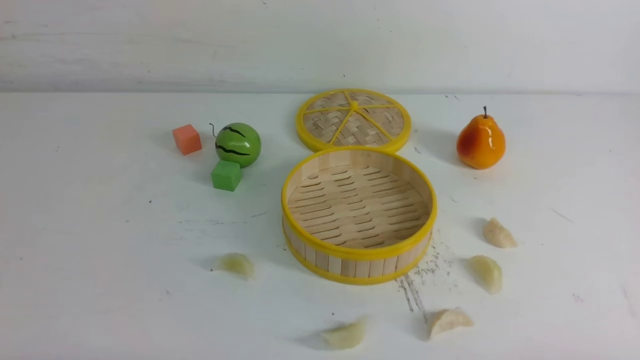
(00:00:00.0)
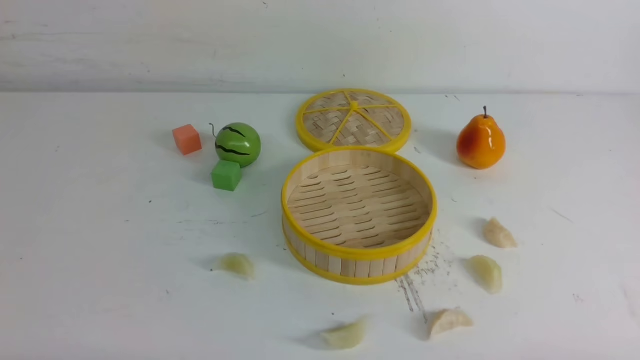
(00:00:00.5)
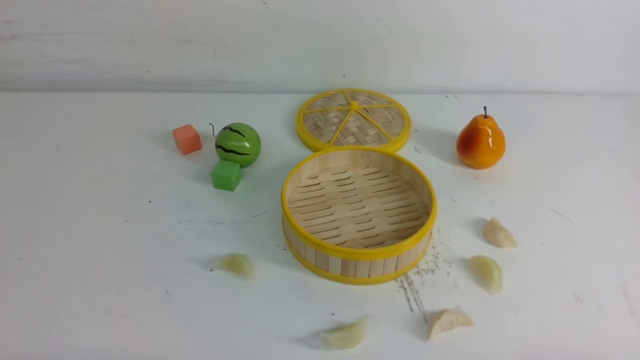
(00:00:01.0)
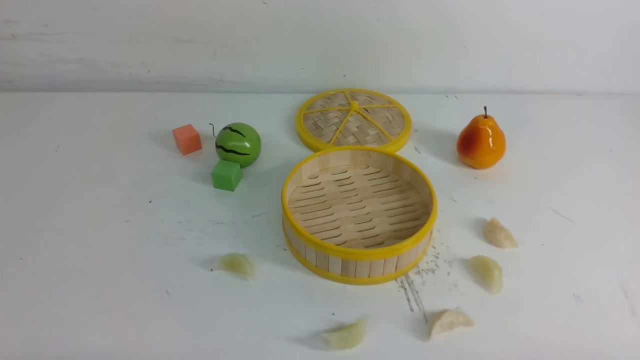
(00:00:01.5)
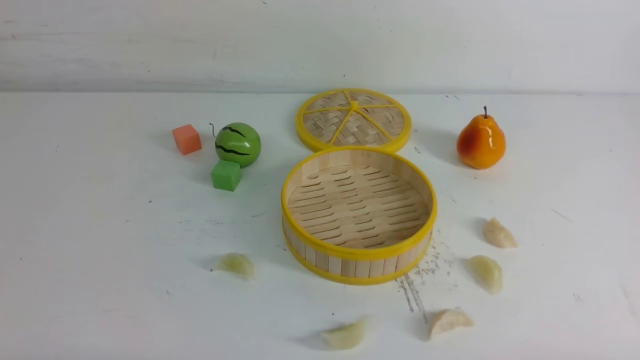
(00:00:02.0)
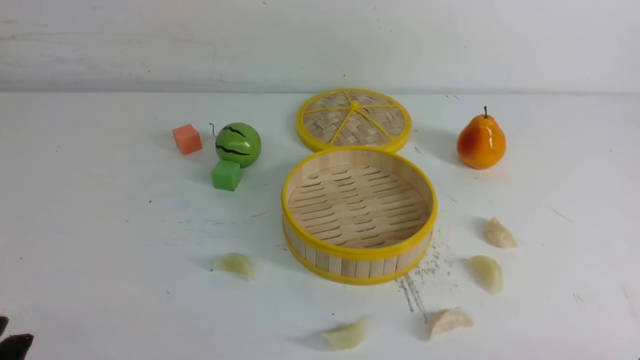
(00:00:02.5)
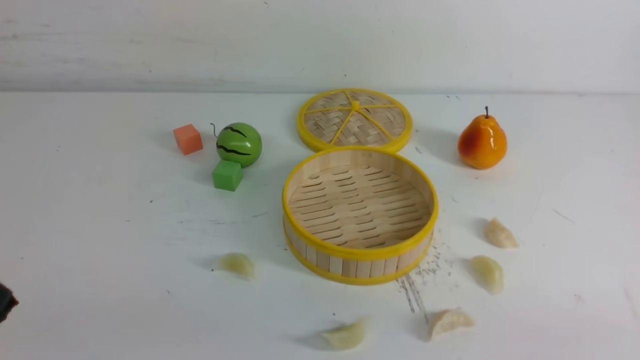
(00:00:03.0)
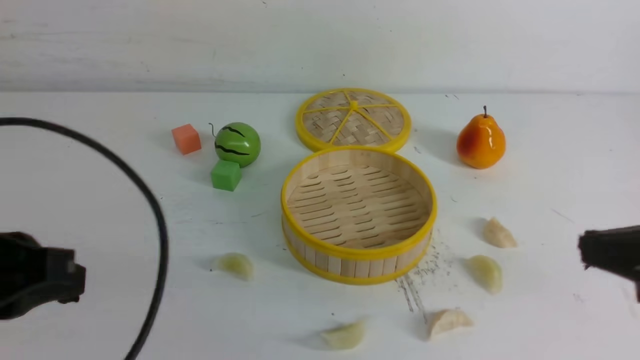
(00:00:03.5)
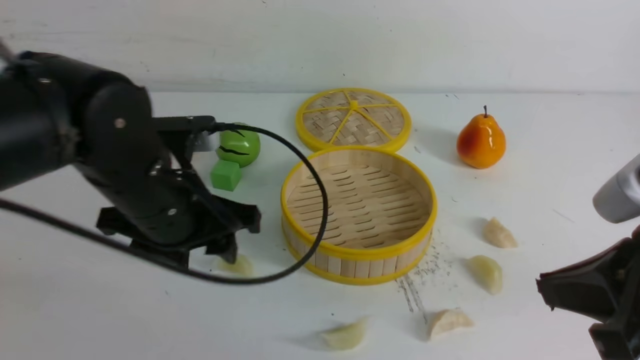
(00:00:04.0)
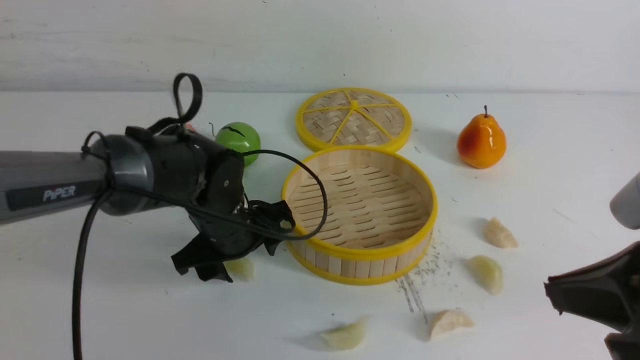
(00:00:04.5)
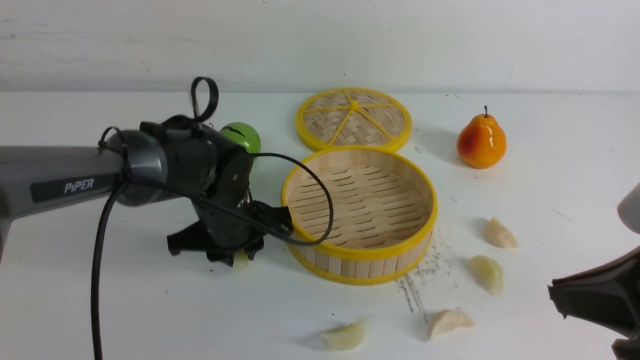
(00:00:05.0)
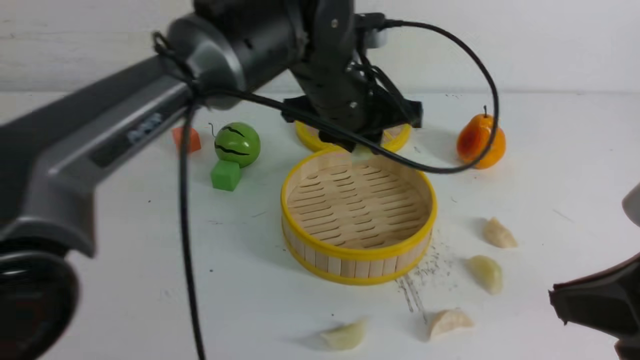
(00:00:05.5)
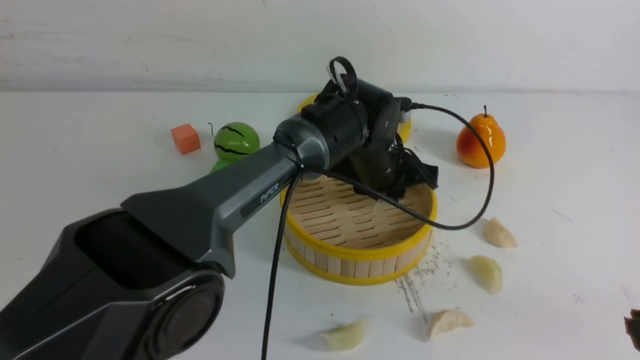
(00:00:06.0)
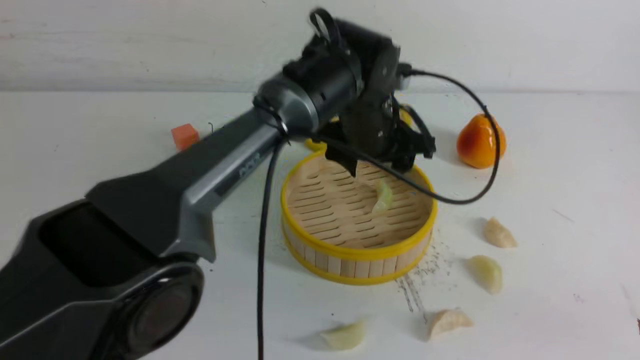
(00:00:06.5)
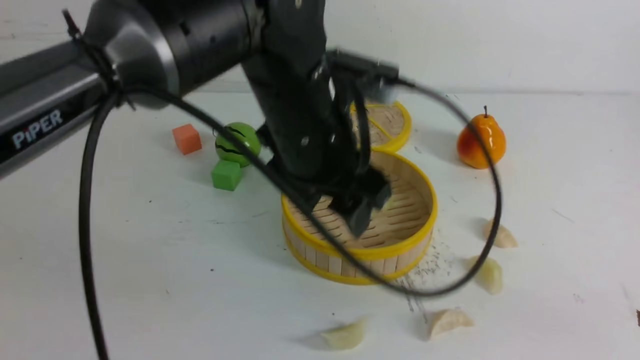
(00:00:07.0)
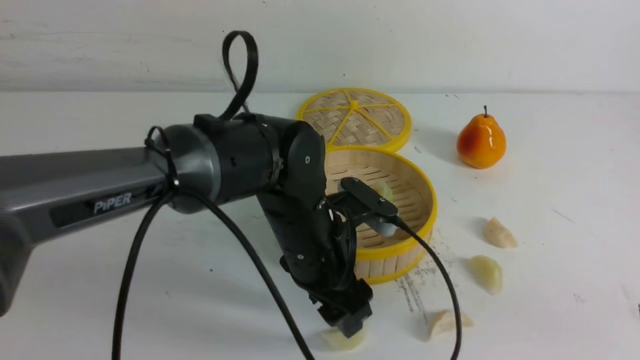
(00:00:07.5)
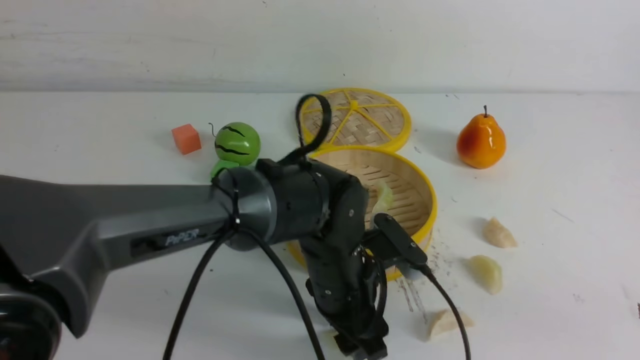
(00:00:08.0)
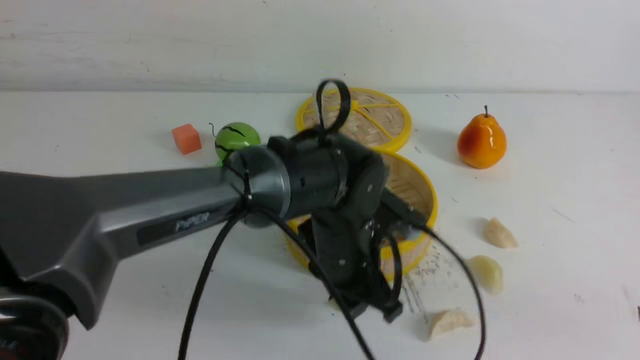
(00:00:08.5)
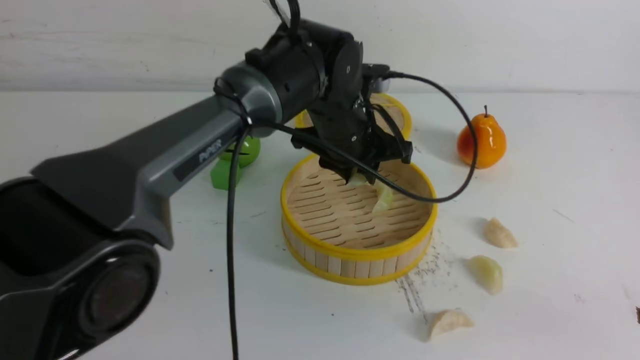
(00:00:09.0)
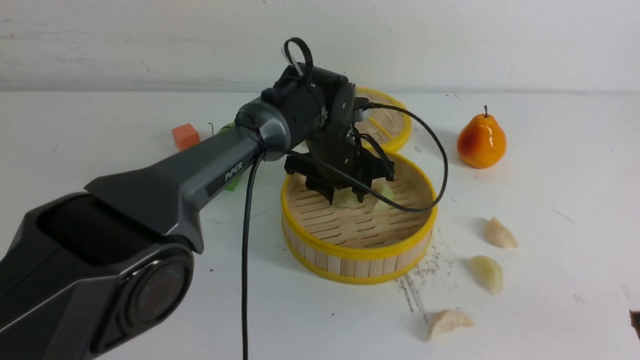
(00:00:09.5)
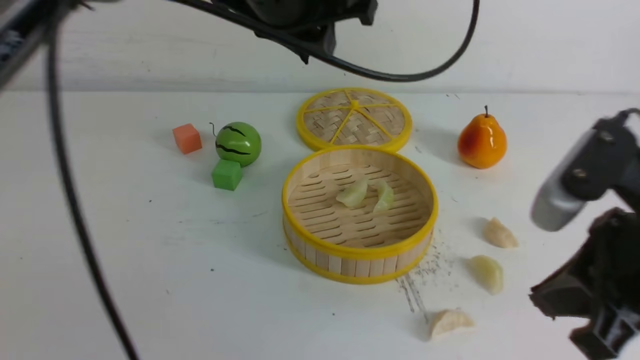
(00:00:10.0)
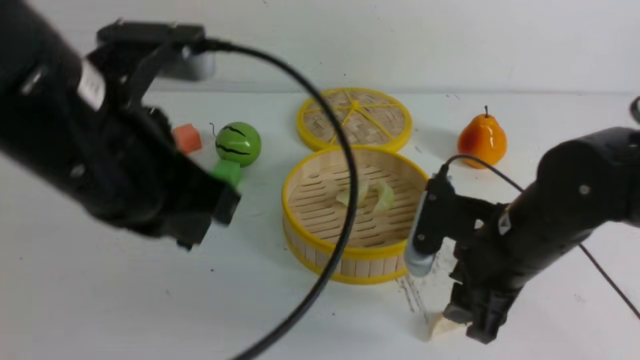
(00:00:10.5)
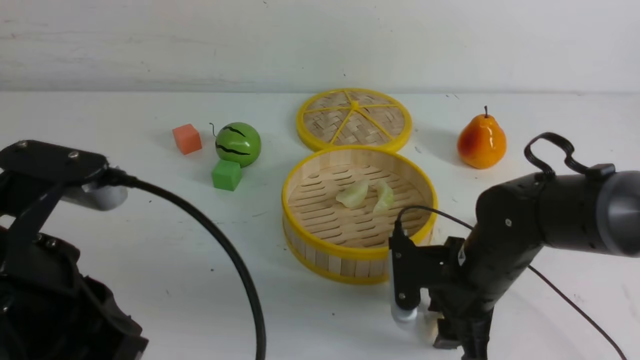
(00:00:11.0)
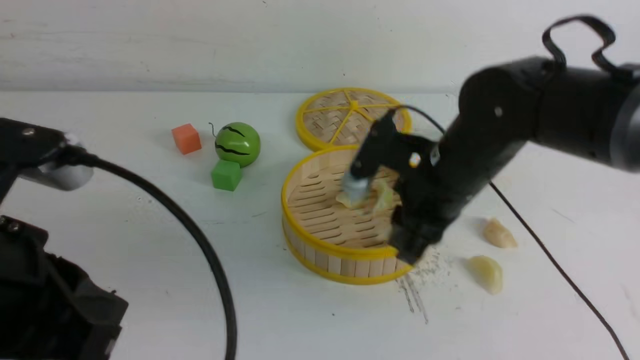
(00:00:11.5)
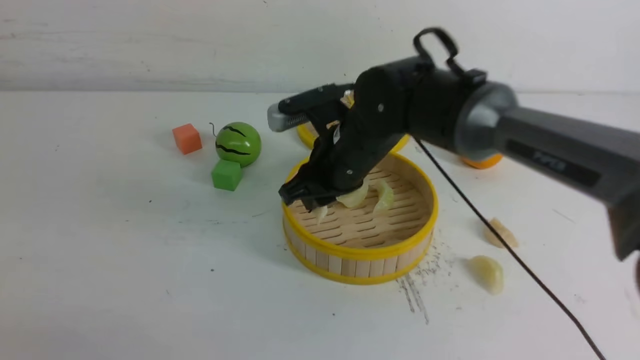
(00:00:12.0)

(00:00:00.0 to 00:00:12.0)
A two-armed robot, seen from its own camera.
Task of the whole recording: put the dumplings into the steamer on the white table.
Step, 00:00:00.0 - 00:00:05.0: use the left arm to grab a dumpling.
Step, 00:00:05.5 - 00:00:06.5: use the left arm to put the dumpling into the steamer.
Step, 00:00:07.0 - 00:00:08.0: use the left arm to grab a dumpling.
Step, 00:00:09.0 - 00:00:09.5: use the left arm to put the dumpling into the steamer.
Step, 00:00:10.0 - 00:00:11.0: use the right arm to grab a dumpling.
00:00:02.0 - 00:00:04.0: The right gripper heads upward, forward and to the left, covering about 20 cm, and closes. Meanwhile the left gripper goes about 30 cm forward, to the right and upward, and closes and opens again.
00:00:04.0 - 00:00:06.0: The right gripper travels backward by approximately 5 cm; the left gripper travels to the right and forward by roughly 25 cm.
00:00:06.0 - 00:00:08.0: The left gripper shifts approximately 15 cm backward, goes upward and returns, roughly 10 cm each way, and opens its fingers.
00:00:08.0 - 00:00:10.0: The left gripper moves upward, some 25 cm, and closes. The right gripper is displaced forward and to the left by roughly 10 cm.
00:00:10.0 - 00:00:12.0: The left gripper heads backward and to the left, covering some 35 cm, while the right gripper shifts some 30 cm forward and to the left, and opens, then closes again.

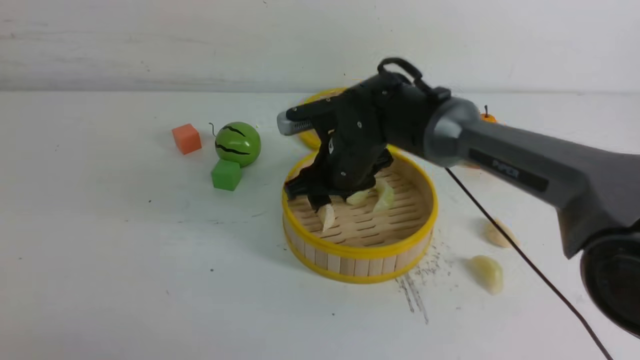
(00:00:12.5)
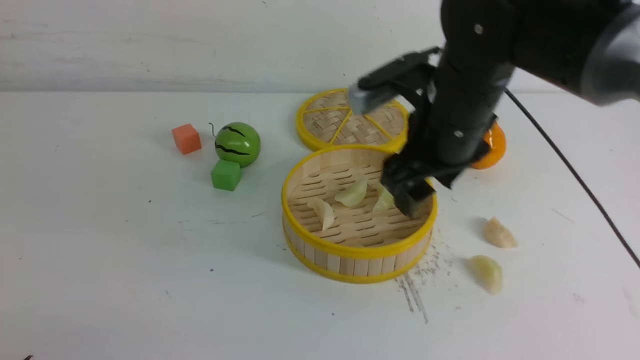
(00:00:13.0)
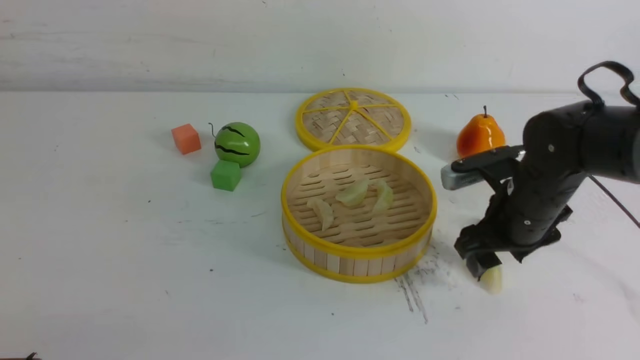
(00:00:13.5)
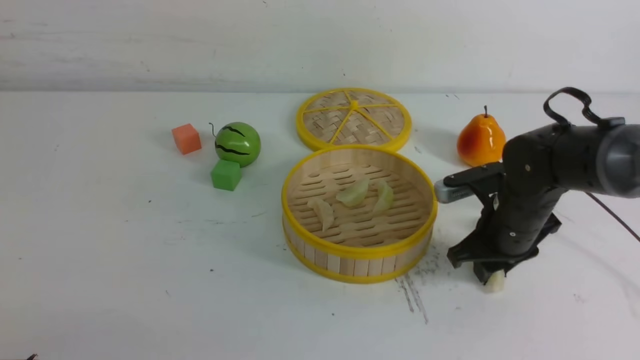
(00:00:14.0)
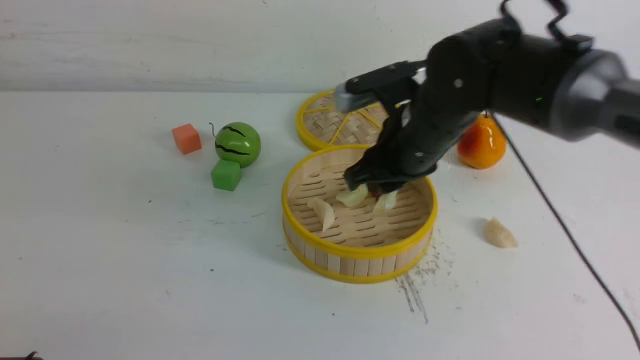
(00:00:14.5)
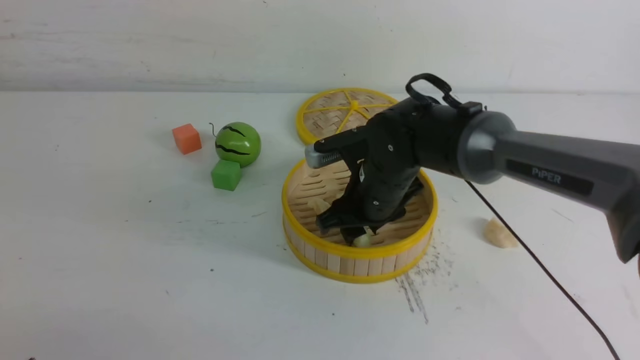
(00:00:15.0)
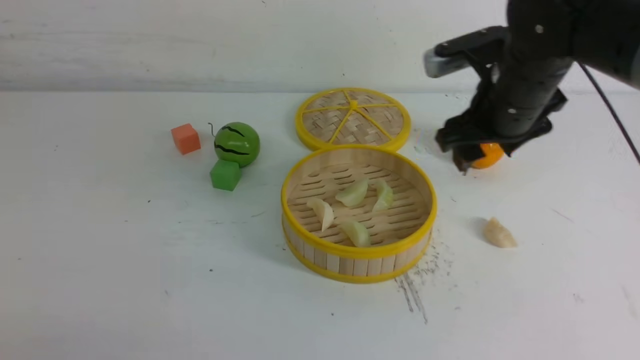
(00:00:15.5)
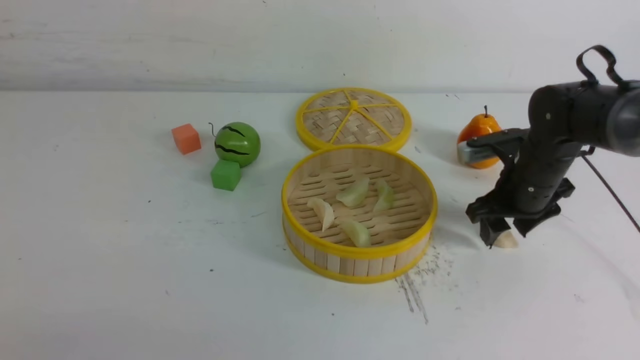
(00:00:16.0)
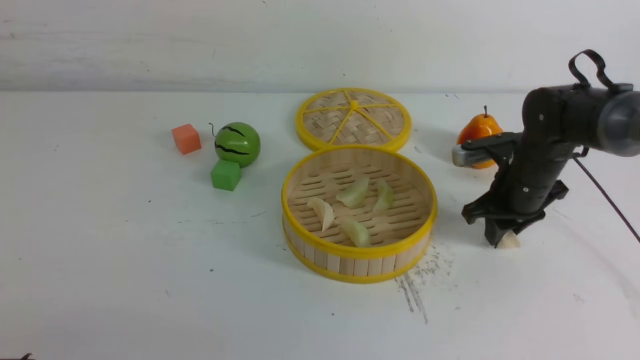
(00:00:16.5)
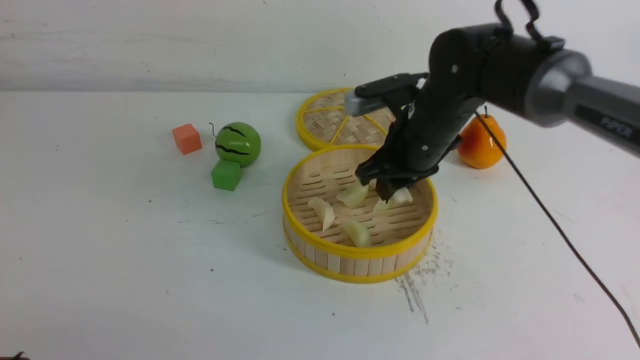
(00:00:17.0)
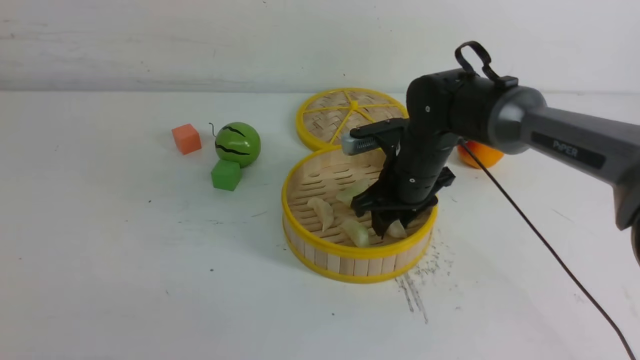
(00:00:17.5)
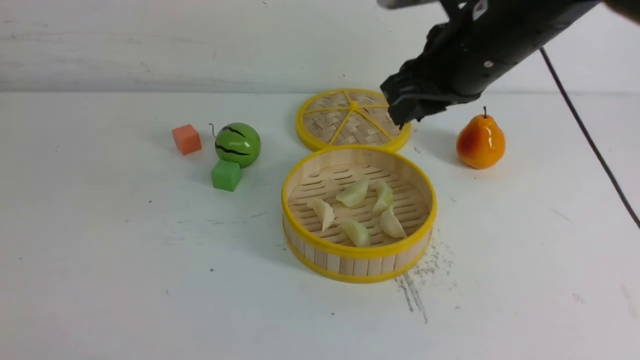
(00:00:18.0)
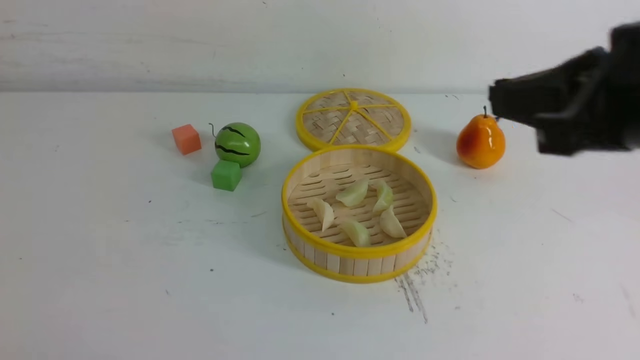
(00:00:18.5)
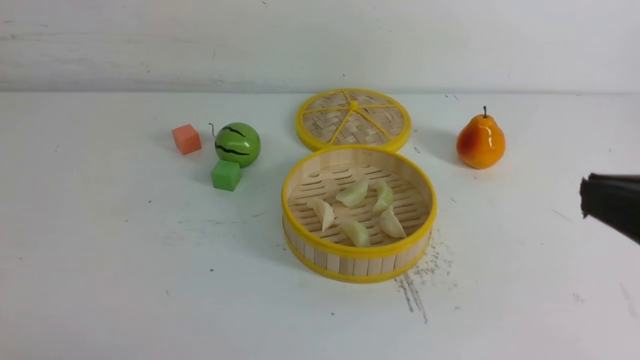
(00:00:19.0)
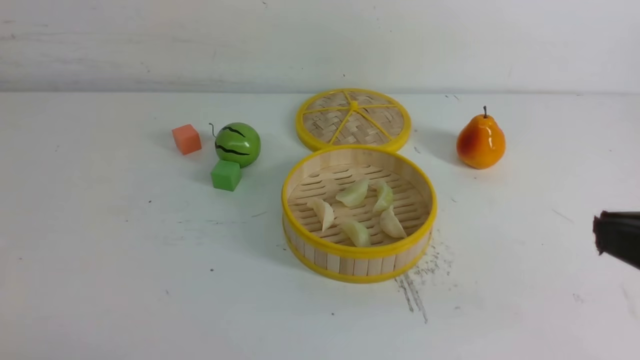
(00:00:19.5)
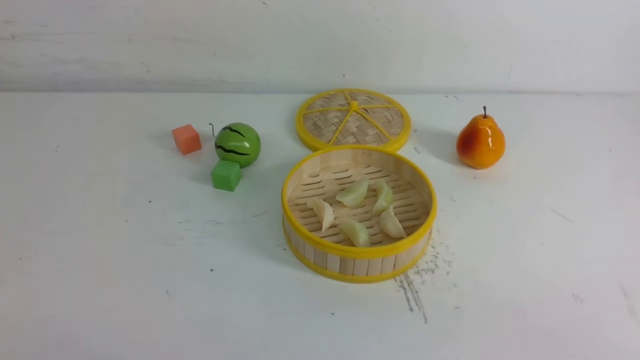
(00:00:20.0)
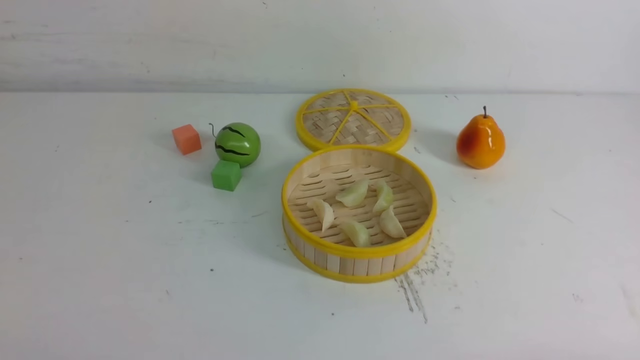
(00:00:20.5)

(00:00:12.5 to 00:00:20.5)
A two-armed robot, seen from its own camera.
Task of the whole recording: put the dumplings into the steamer on the white table.
Step, 00:00:13.0 - 00:00:14.0: use the right arm to grab a dumpling.
Step, 00:00:14.5 - 00:00:15.0: use the right arm to put the dumpling into the steamer.
Step, 00:00:15.5 - 00:00:16.5: use the right arm to grab a dumpling.
Step, 00:00:17.0 - 00:00:17.5: use the right arm to put the dumpling into the steamer.
00:00:12.5 - 00:00:14.5: The right gripper moves to the right, some 5 cm.
00:00:14.5 - 00:00:16.5: The right gripper goes roughly 15 cm to the right, downward and forward, and opens, then closes once more.
00:00:16.5 - 00:00:18.5: The right gripper heads backward and upward, covering approximately 35 cm, and closes its fingers. Meanwhile the left gripper travels backward by approximately 5 cm.
00:00:18.5 - 00:00:20.5: The right gripper goes roughly 30 cm downward, backward and to the right.
